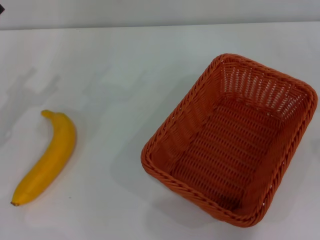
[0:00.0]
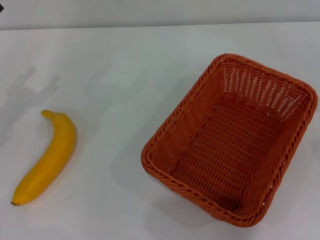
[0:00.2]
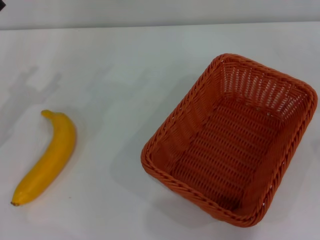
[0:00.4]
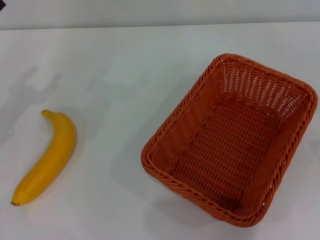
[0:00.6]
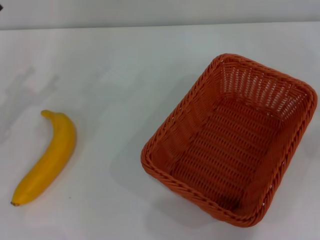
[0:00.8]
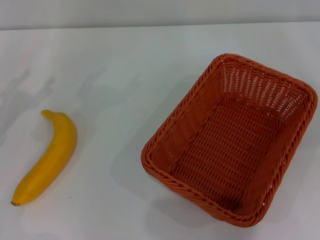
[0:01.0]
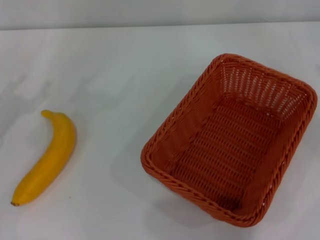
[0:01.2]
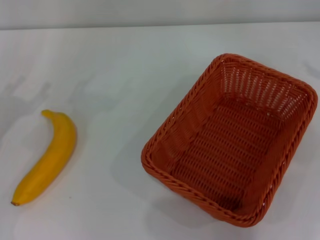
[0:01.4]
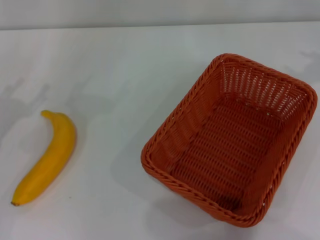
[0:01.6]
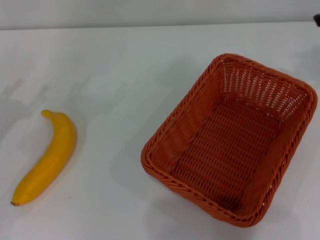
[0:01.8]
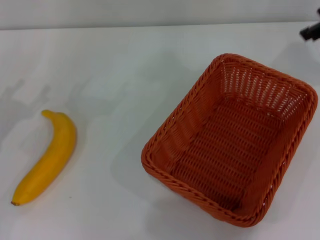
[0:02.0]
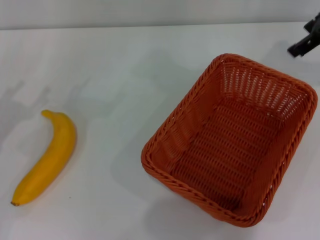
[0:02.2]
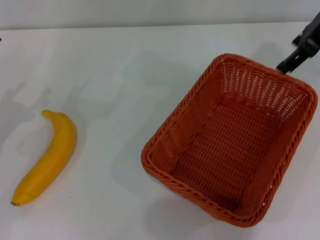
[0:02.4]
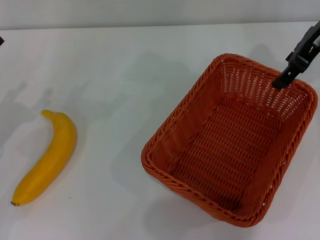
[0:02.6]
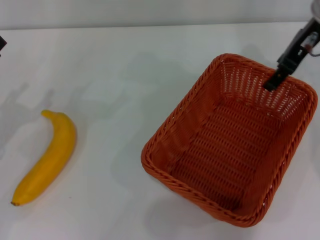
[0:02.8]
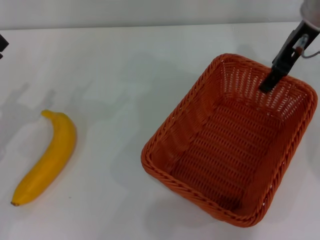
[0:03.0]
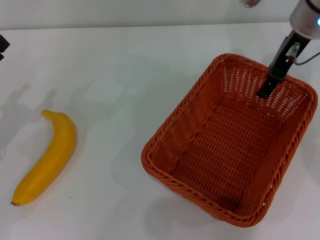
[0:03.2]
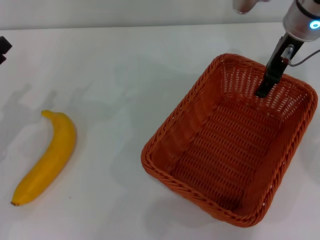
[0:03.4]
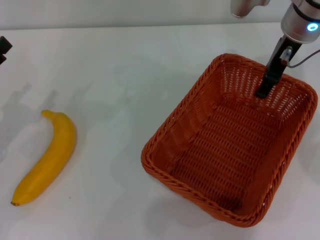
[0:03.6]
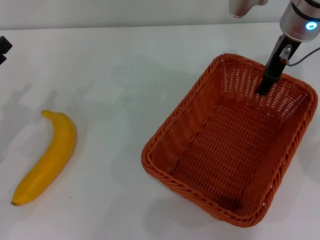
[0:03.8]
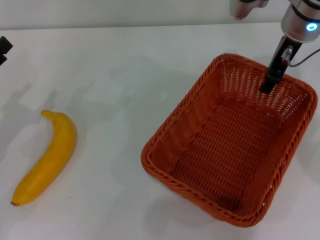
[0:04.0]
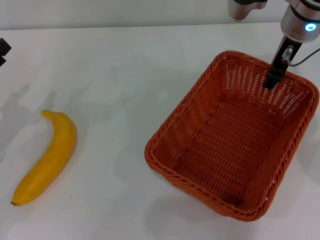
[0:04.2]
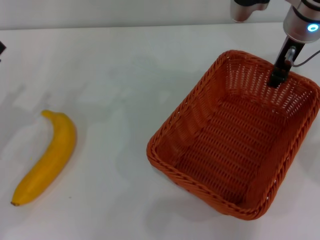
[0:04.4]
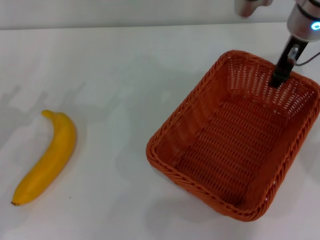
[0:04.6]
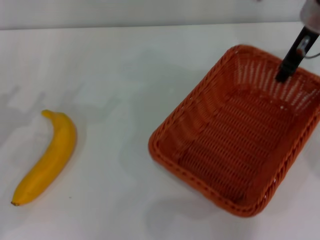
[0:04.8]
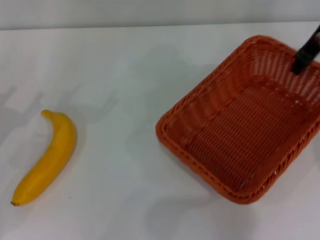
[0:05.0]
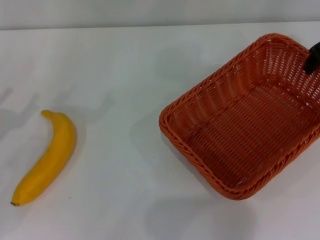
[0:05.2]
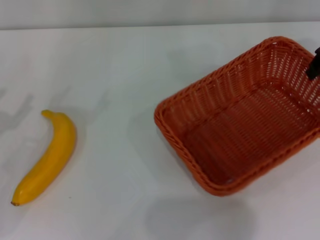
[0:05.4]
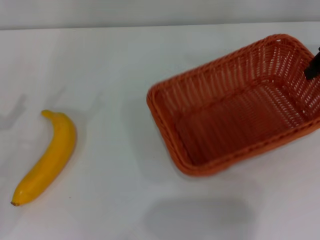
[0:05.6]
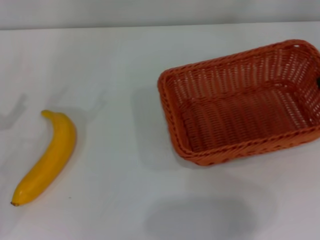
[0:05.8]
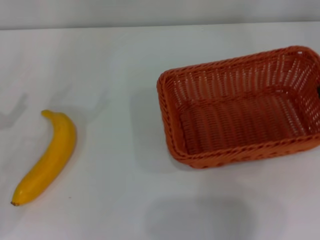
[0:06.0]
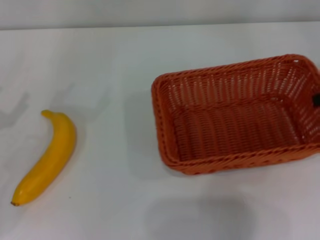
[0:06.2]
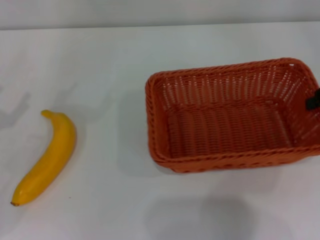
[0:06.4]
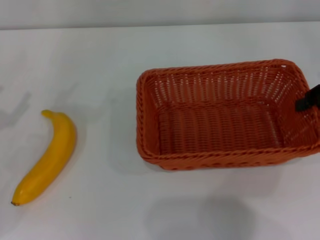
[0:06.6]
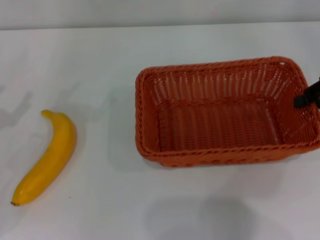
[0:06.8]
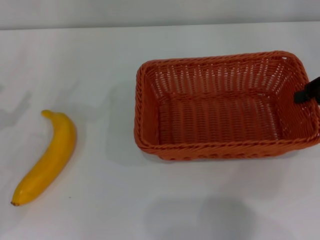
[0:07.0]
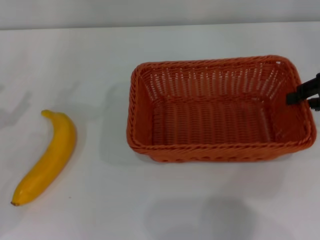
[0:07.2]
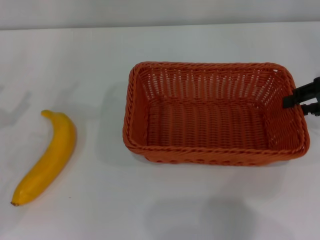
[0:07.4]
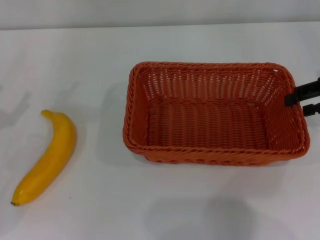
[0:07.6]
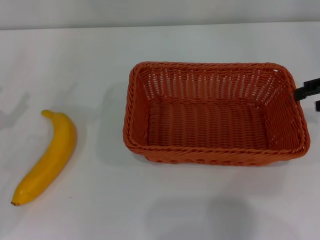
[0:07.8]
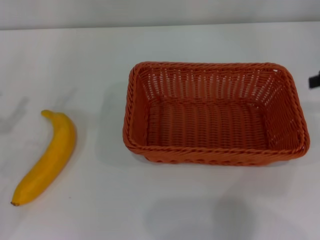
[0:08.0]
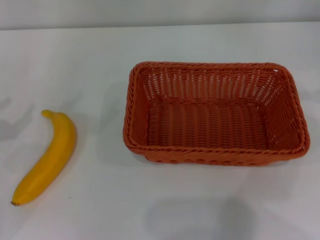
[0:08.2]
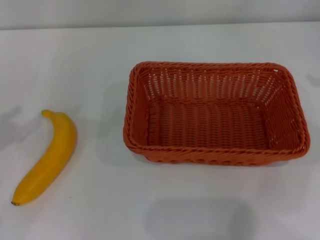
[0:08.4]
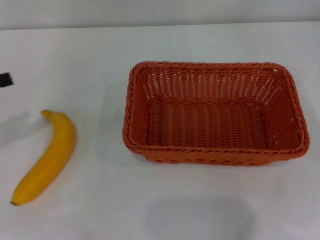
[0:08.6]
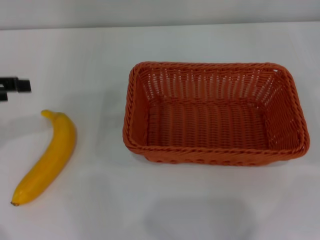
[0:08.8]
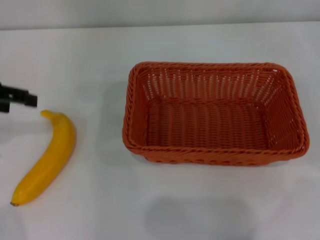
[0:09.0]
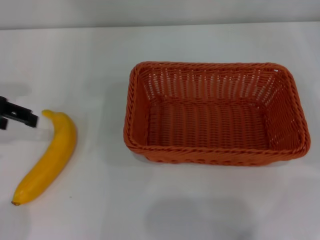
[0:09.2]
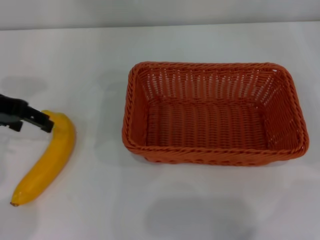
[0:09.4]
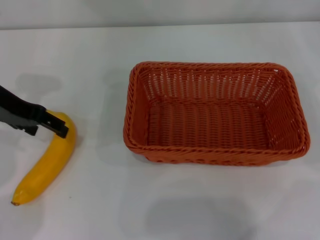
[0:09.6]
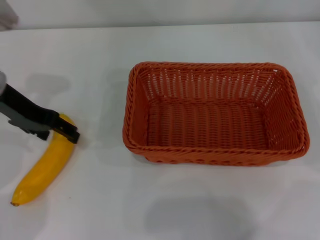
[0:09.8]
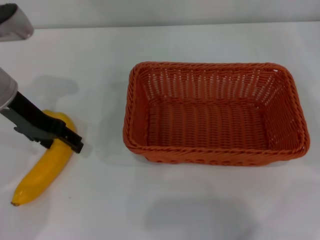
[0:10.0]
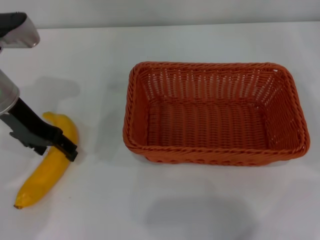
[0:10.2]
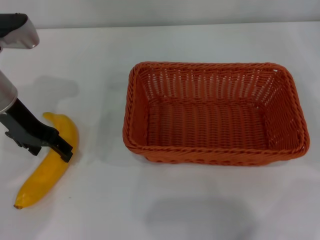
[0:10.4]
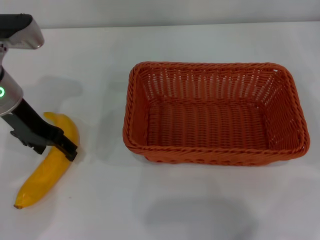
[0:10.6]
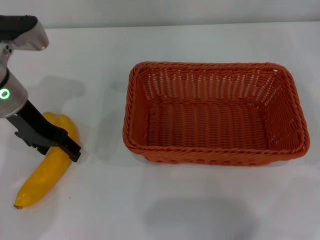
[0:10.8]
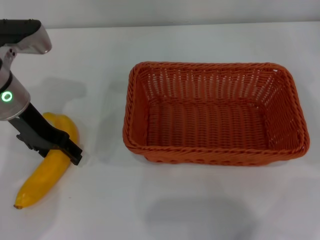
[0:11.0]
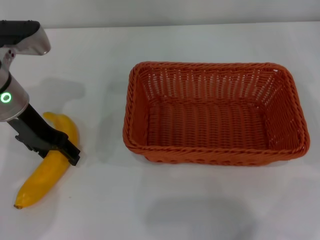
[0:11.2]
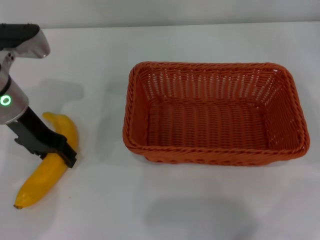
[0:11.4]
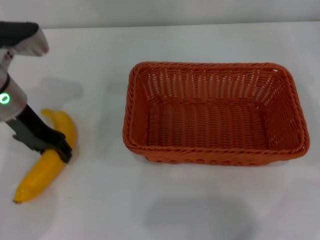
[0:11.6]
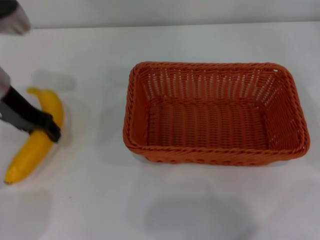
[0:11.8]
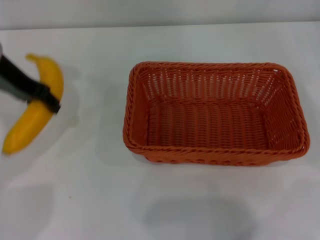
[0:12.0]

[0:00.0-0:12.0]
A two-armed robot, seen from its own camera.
Step, 0.0 to 5.0 s: Pick up the light basket with the right gripper.
Step, 5.4 to 8.0 s: Place the light basket in the center of view with the right gripper.
Step, 8.2 to 11.8 s: Pick up the banana with the left gripper.
1.6 to 3.0 s: The right gripper heads to the left and forward, covering about 15 cm.
3.0 to 4.4 s: The right gripper closes up.
4.4 to 6.0 s: The right gripper heads to the right, covering roughly 15 cm.
6.0 to 7.6 s: The right gripper opens its fingers.
7.6 to 9.0 s: The left gripper is displaced upward and forward by approximately 15 cm. Meanwhile the right gripper goes some 10 cm to the right, and opens.
9.0 to 10.4 s: The left gripper heads to the right and downward, covering some 10 cm.
10.4 to 12.0 s: The left gripper moves upward, approximately 5 cm, and closes up.

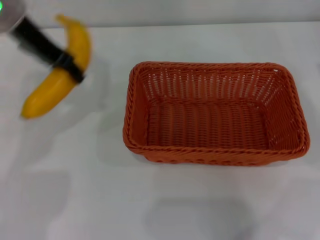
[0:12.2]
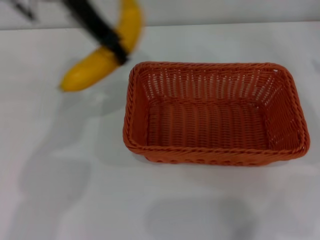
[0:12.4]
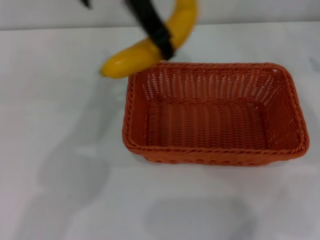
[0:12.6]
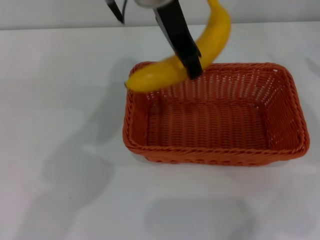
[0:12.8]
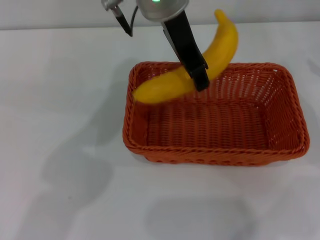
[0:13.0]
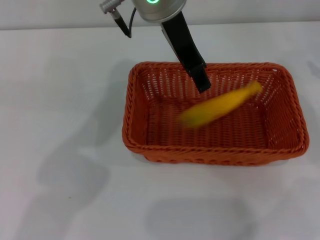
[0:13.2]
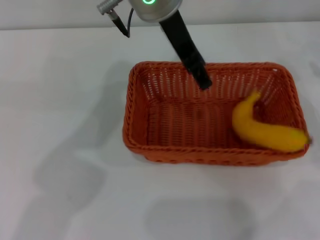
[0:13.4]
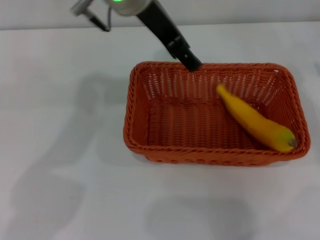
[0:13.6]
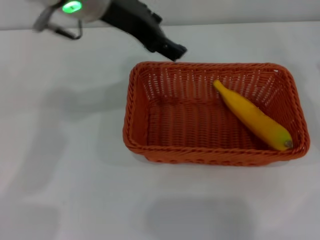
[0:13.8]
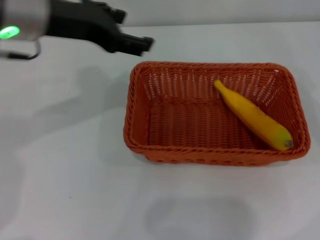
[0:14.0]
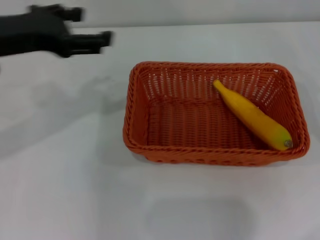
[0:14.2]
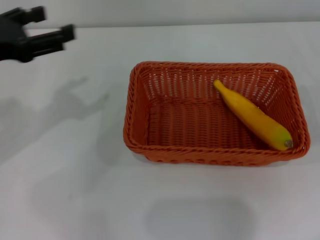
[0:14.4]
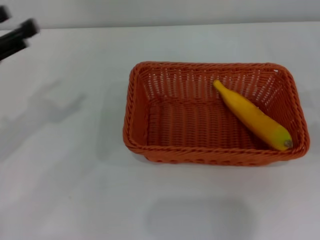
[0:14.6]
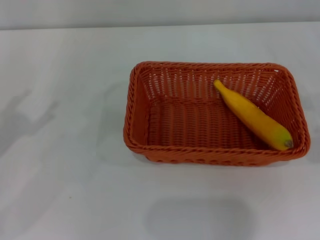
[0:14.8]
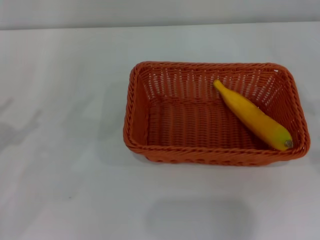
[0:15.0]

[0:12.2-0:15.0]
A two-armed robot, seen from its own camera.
Step, 12.2 to 13.6 s: Place the banana into the light basket with the left gripper.
12.2 to 13.6 s: The left gripper is displaced to the right by about 10 cm, and opens up.
13.6 to 15.0 s: The left gripper is displaced to the left, downward and backward by roughly 40 cm; the right gripper heads downward and backward, covering about 10 cm.

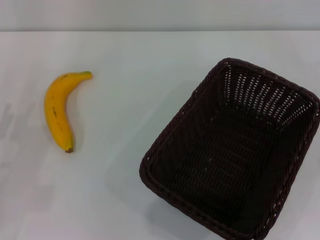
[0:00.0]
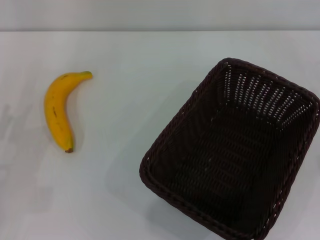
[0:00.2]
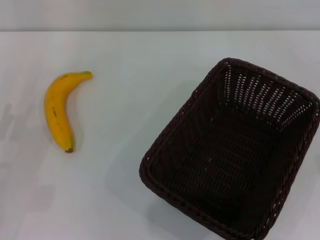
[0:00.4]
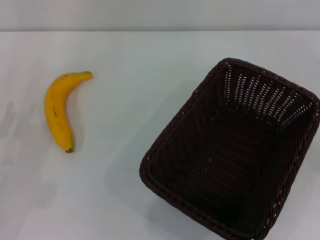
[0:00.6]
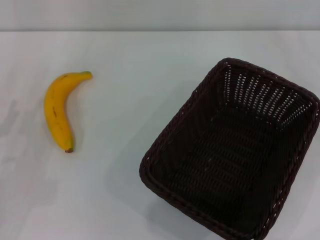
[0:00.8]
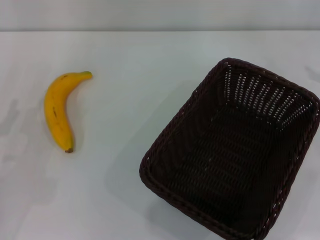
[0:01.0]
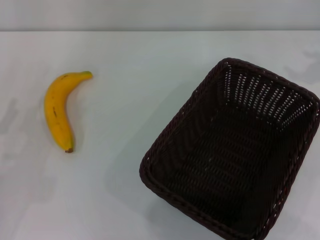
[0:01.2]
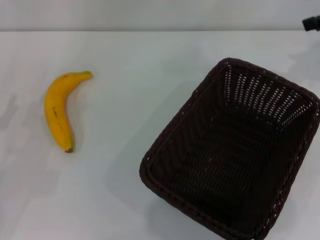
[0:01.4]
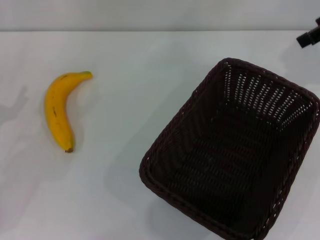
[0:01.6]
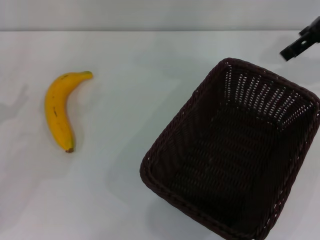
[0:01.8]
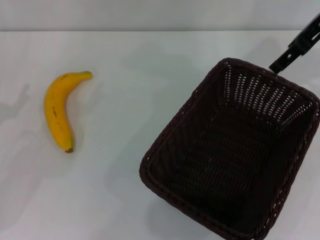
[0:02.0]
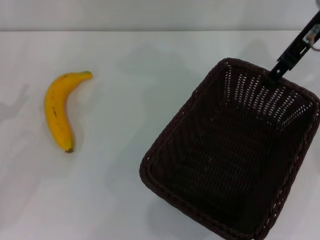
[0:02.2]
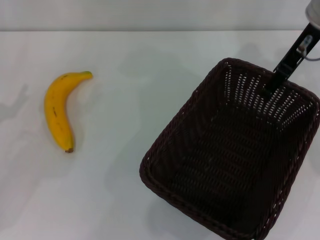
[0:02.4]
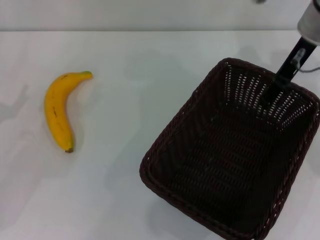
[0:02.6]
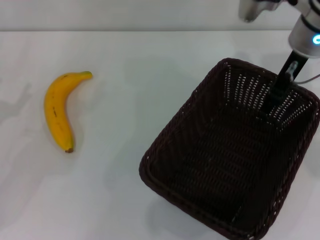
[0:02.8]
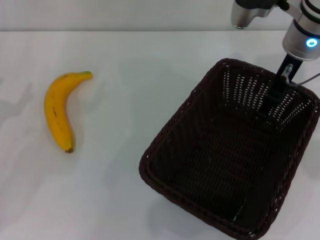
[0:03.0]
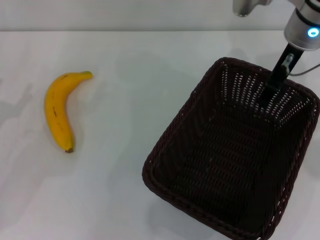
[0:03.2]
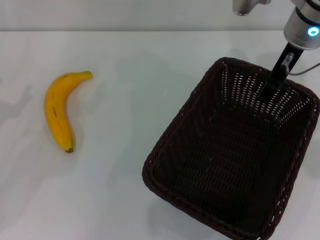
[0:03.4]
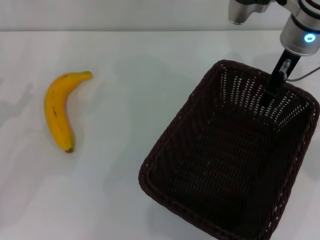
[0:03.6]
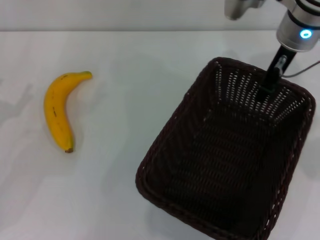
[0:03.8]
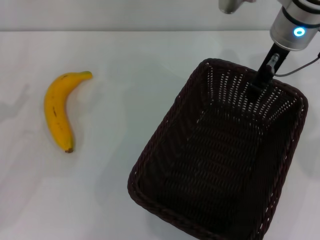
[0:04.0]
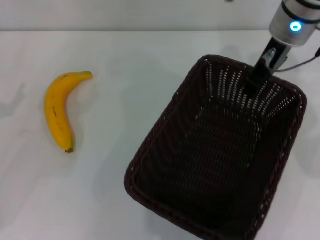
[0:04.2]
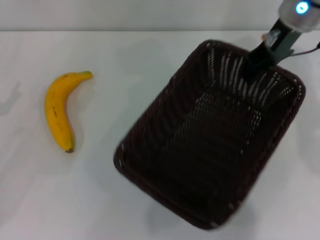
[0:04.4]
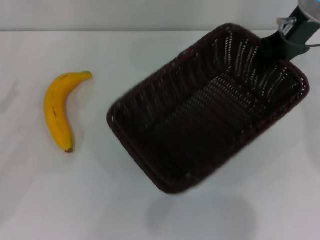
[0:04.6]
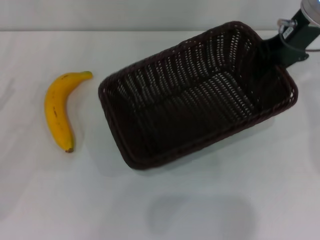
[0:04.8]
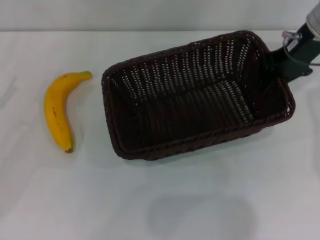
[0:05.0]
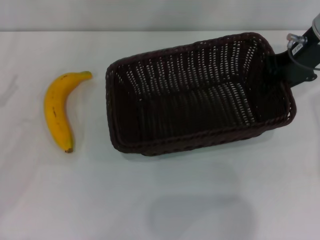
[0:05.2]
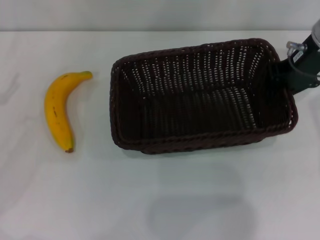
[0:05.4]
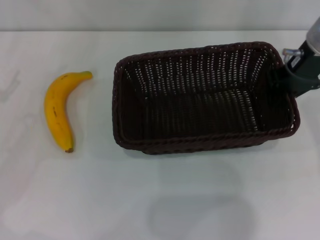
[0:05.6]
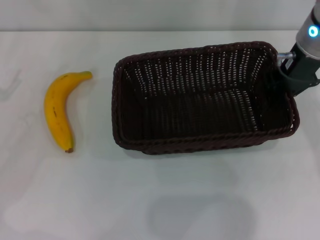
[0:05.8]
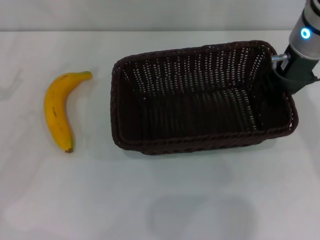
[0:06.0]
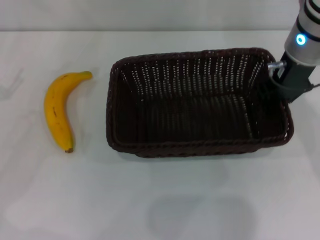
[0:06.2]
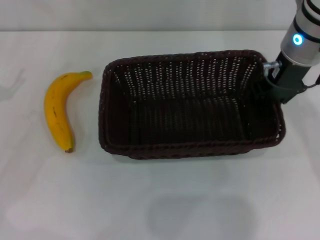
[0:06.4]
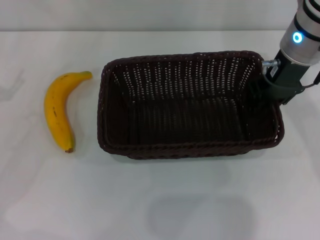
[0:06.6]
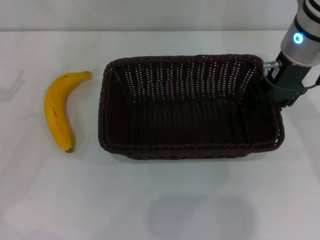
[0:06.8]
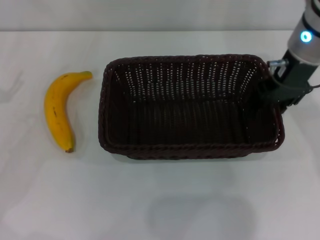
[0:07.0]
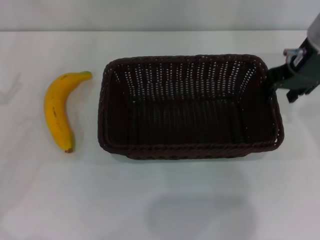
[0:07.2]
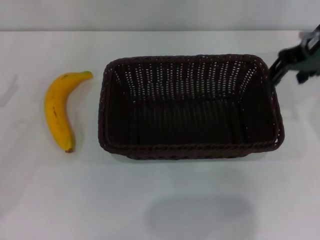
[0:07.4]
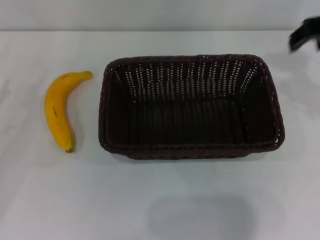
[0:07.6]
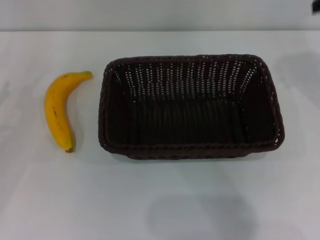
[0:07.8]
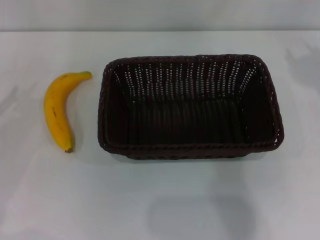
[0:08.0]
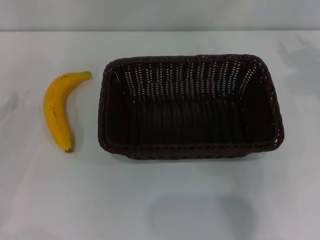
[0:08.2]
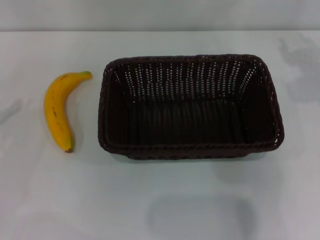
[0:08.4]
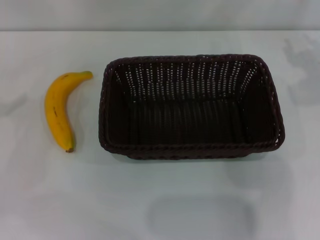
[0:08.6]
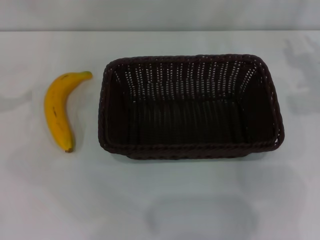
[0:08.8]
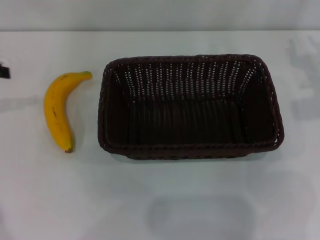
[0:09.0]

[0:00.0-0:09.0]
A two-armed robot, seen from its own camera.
Step, 0.0 to 4.6 s: Pick up the dark basket with the right gripper.
Step, 4.8 to 7.4 s: Place the dark basket in the center of view with the right gripper.
1.6 to 3.0 s: The right gripper is displaced to the left and downward by some 15 cm.
3.0 to 4.4 s: The right gripper closes its fingers.
6.0 to 7.6 s: The right gripper moves upward and to the right, some 10 cm, and opens its fingers.
7.6 to 9.0 s: The left gripper shifts some 15 cm upward and forward, while the right gripper travels downward and to the right by some 15 cm.
